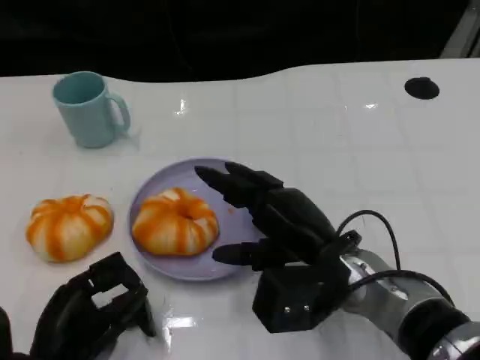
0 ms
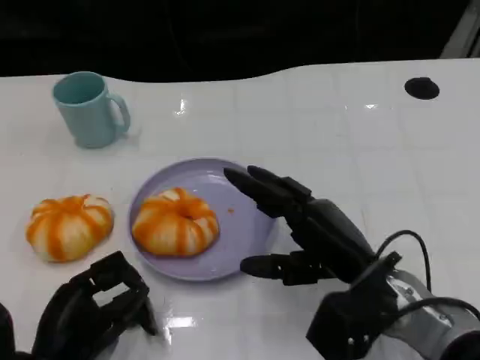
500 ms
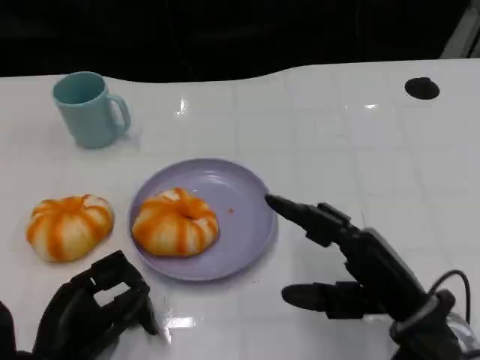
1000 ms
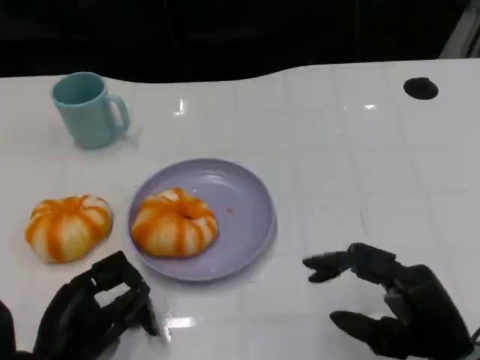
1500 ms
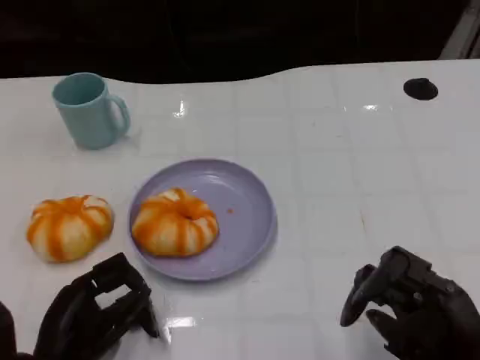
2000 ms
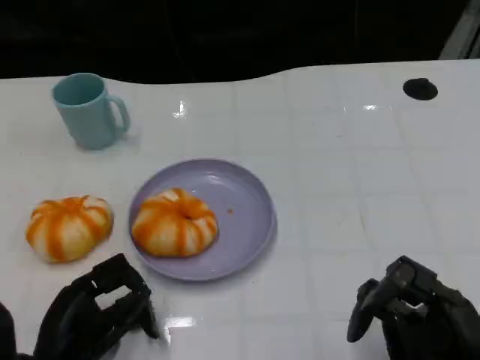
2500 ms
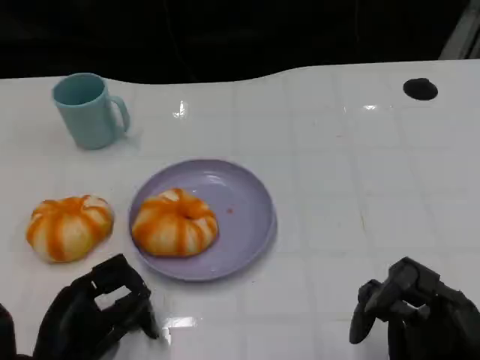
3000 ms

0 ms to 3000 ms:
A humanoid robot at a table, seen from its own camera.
Task of the whole recording: Grasp the bread from the table and place it into the plate.
0 ms to 1500 ms: The right hand shifts roughly 15 cm to the right and backward.

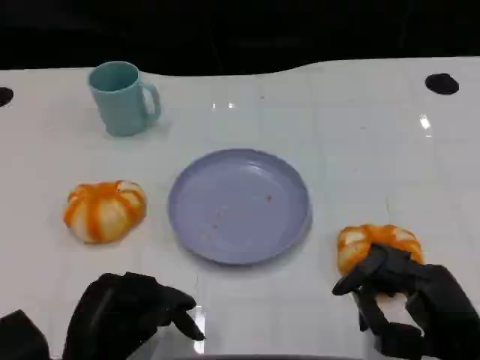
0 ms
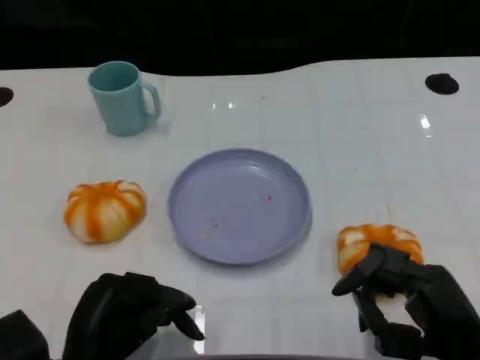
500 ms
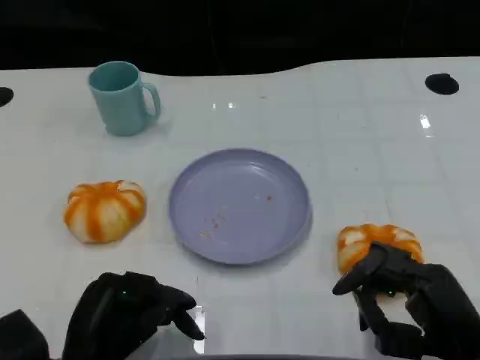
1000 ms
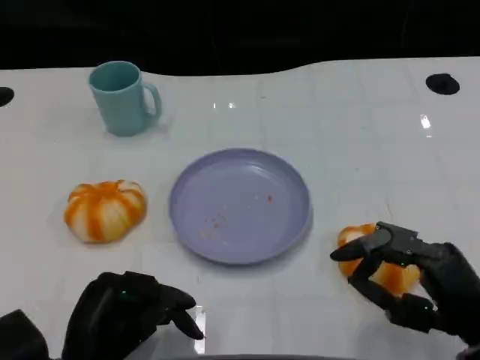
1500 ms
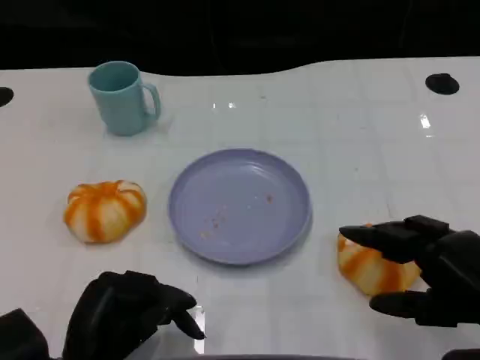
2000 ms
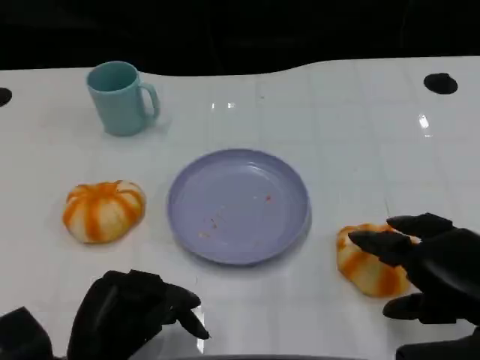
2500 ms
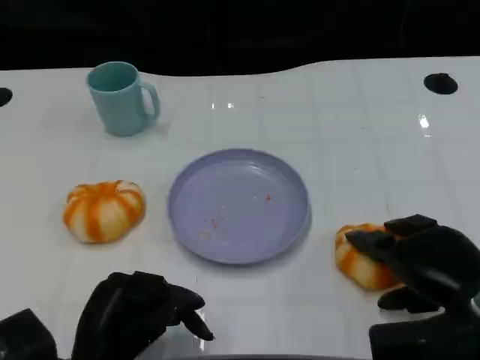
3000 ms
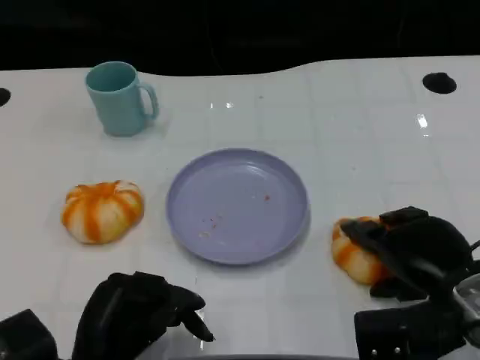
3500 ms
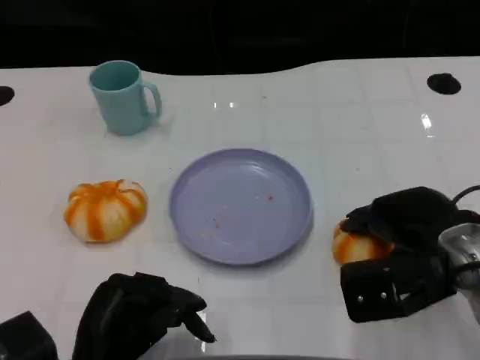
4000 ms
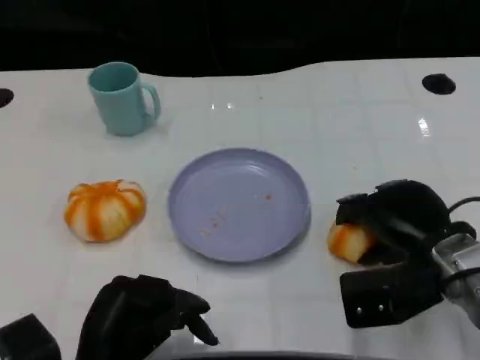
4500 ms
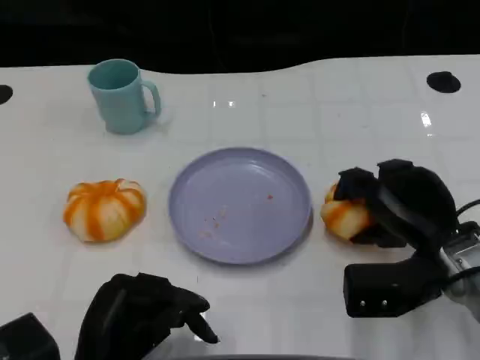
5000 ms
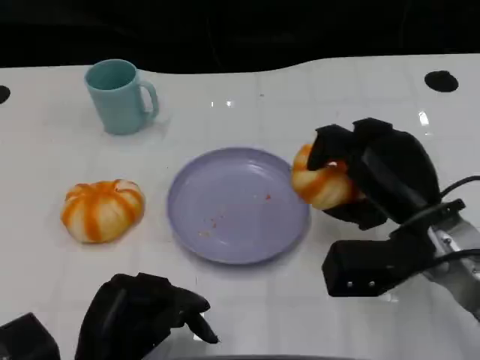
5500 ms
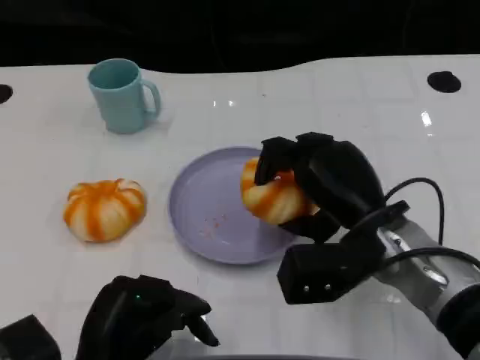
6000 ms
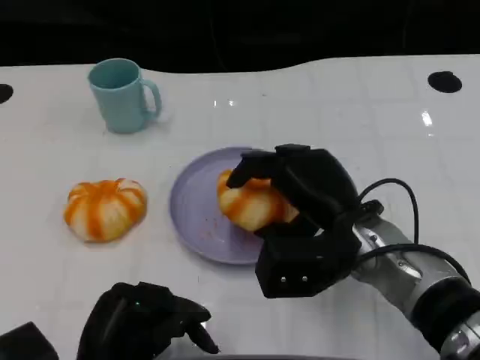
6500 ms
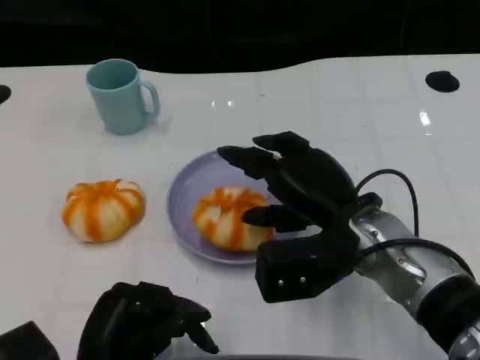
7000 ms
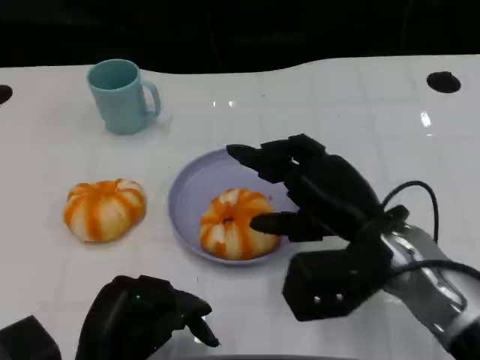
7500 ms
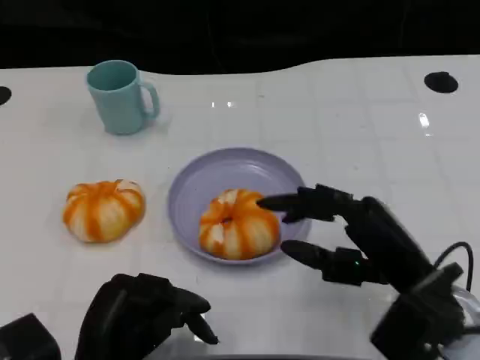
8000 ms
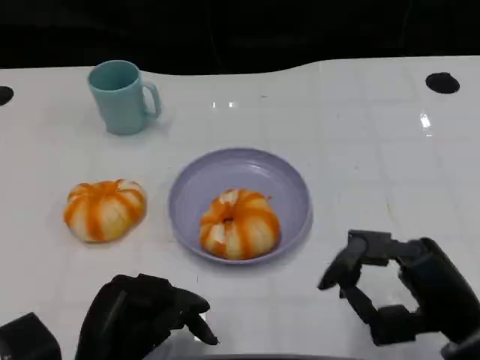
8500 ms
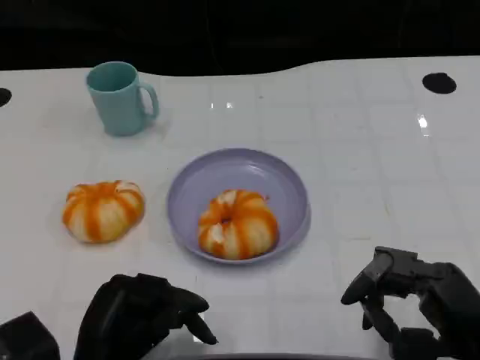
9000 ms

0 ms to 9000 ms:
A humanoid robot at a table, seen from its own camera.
Task of the whole recording: Grasp the bread from the table and place it into the plate.
0 ms to 2000 ms: The right hand changes place by about 5 cm.
2000 ms to 4500 ms: The right hand goes some 10 cm forward and to the left.
4500 ms to 7000 ms: The right hand heads to the left, covering approximately 10 cm.
7000 ms to 9000 ms: The right hand is displaced backward and to the right by some 20 cm.

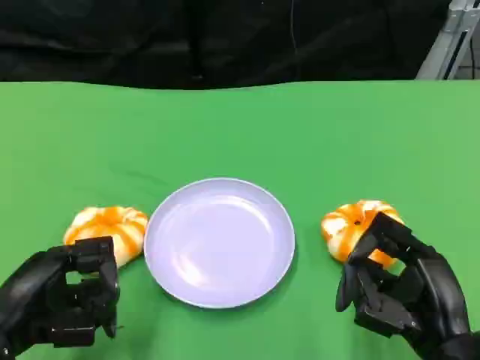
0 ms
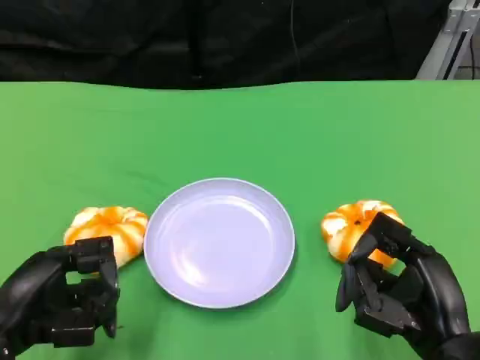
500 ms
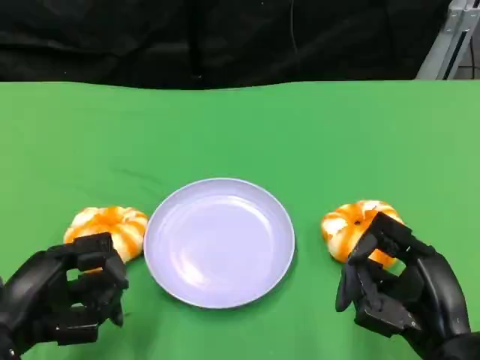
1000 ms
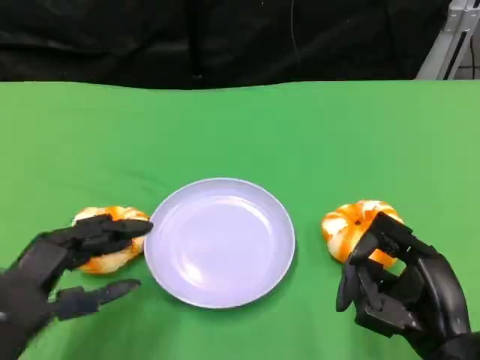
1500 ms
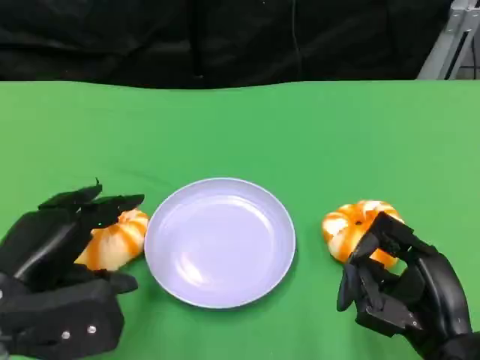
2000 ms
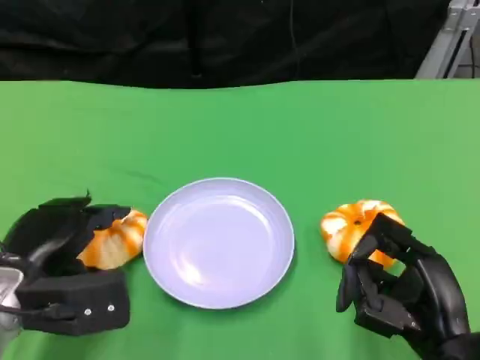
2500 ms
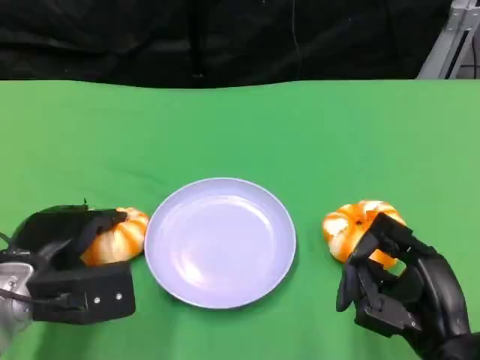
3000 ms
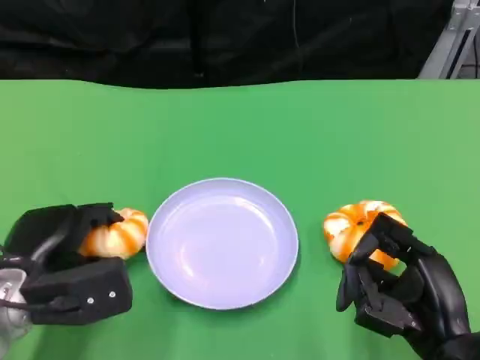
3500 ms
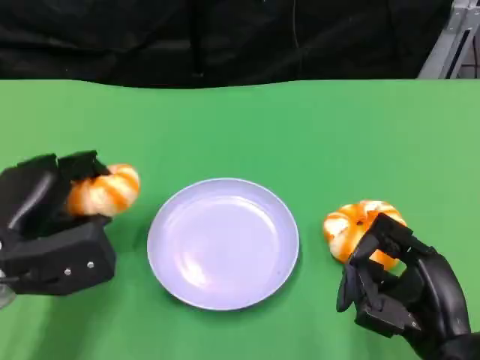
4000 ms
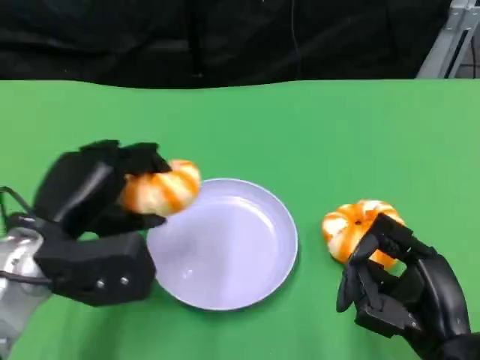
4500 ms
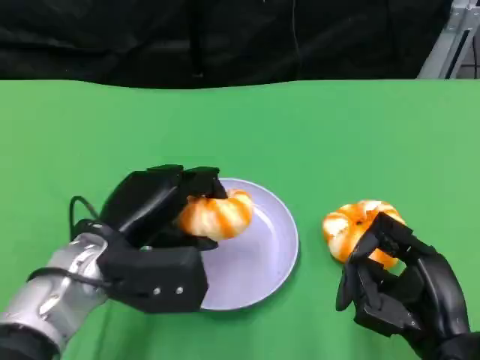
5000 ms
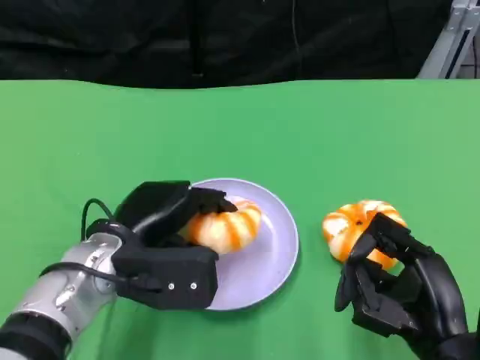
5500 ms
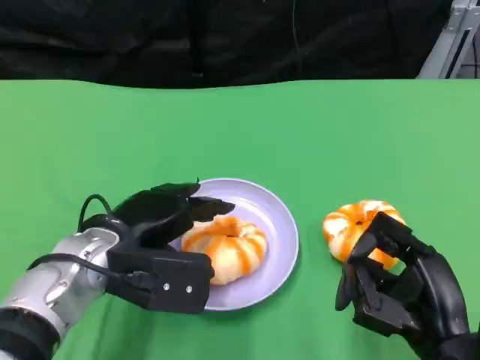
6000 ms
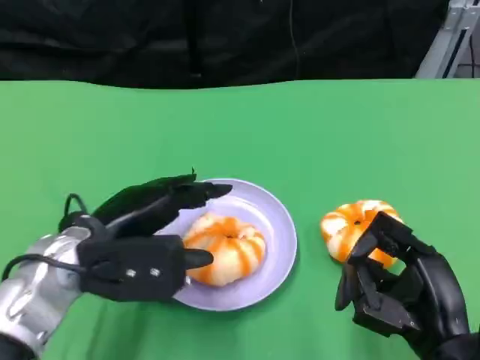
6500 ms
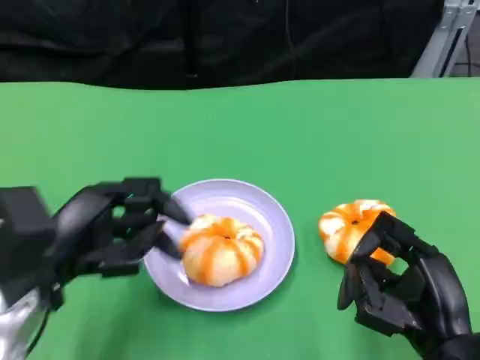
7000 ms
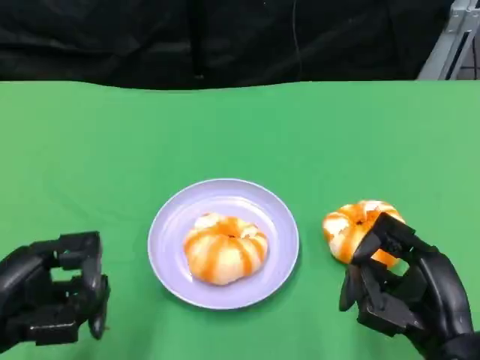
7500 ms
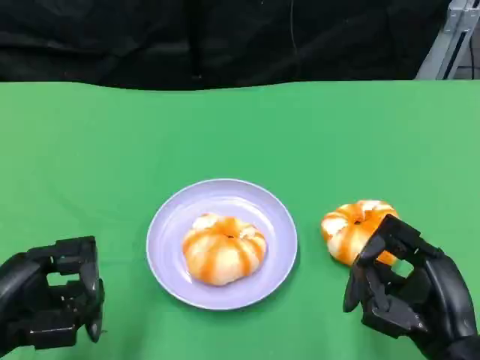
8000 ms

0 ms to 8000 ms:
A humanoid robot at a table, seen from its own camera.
Task of the whole recording: Grasp the bread from the table and place it into the plate.
2000 ms to 4000 ms: The left hand moves forward, roughly 5 cm.
4000 ms to 6000 ms: The left hand goes some 10 cm to the right.
6000 ms to 8000 ms: The left hand is displaced to the left and backward by roughly 15 cm.

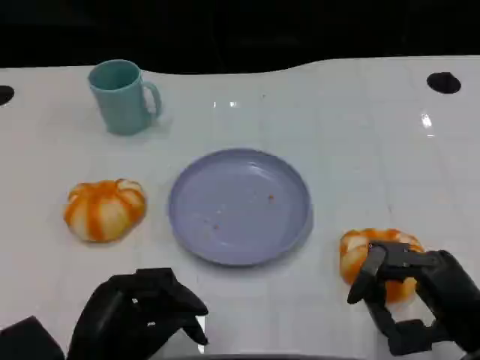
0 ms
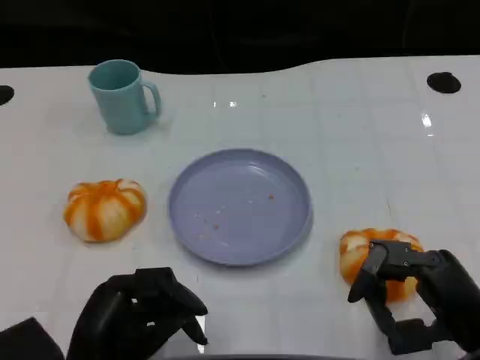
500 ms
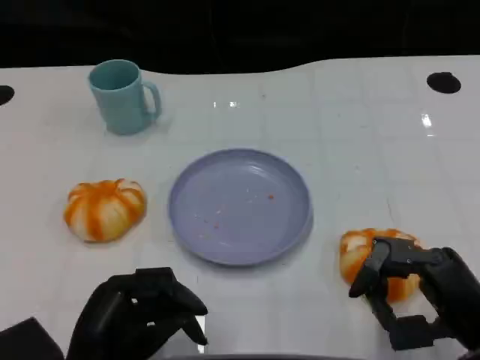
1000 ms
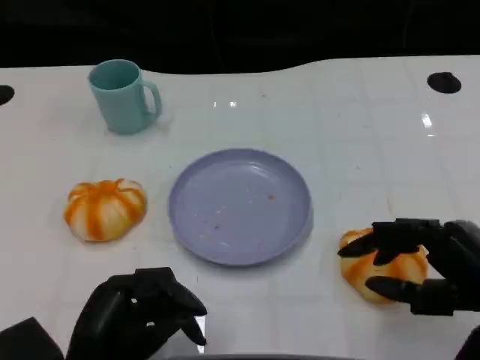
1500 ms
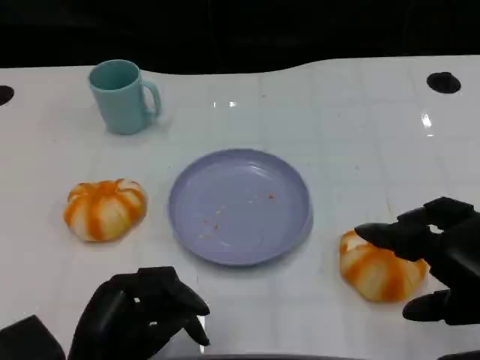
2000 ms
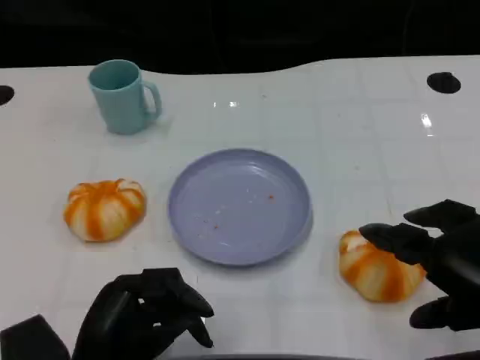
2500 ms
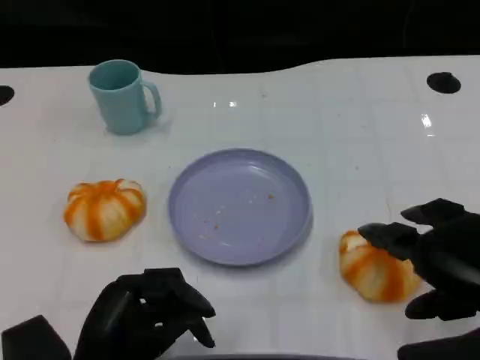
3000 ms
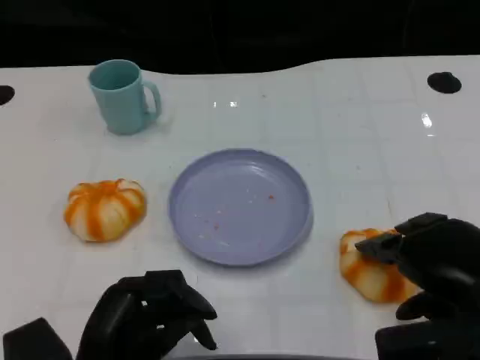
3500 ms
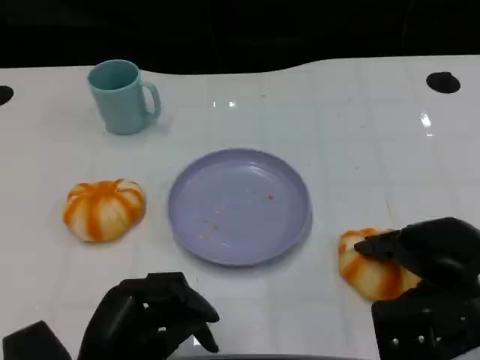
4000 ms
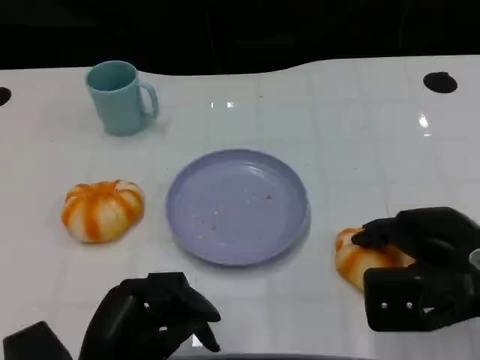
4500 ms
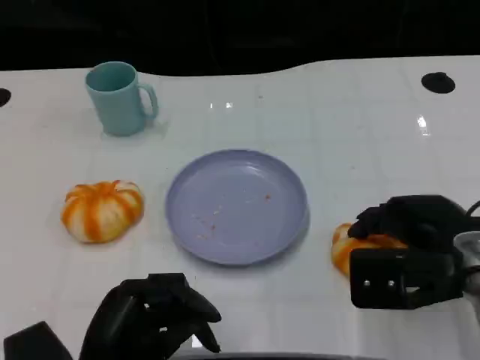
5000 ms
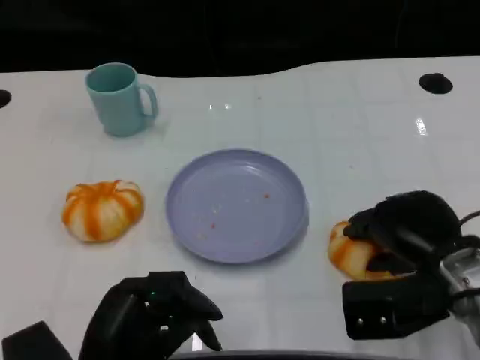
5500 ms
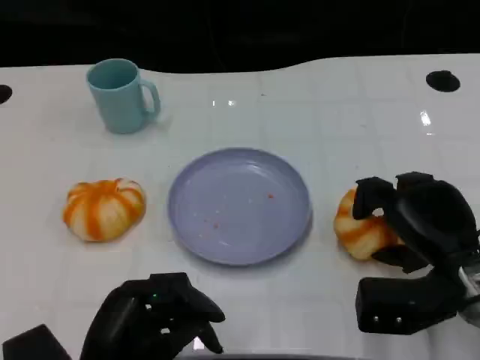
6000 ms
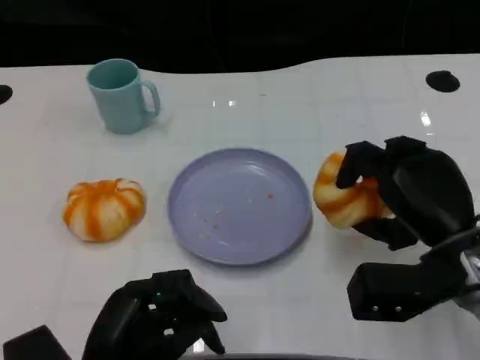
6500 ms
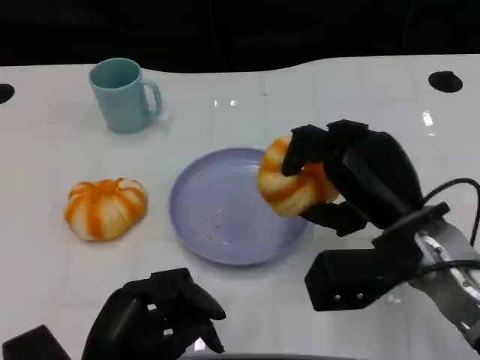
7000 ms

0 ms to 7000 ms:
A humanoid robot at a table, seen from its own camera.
Task of the whole recording: Grasp the bread from the table and place it into the plate.
0 ms to 2000 ms: The right hand travels upward by roughly 10 cm.
2000 ms to 3500 ms: The right hand changes place by roughly 5 cm.
3500 ms to 5000 ms: The right hand shifts approximately 5 cm forward.
5000 ms to 7000 ms: The right hand shifts roughly 5 cm to the left.
